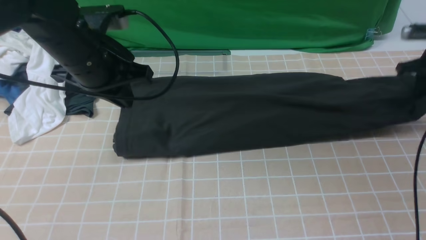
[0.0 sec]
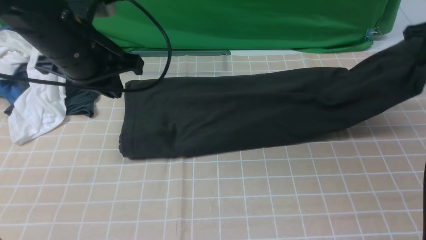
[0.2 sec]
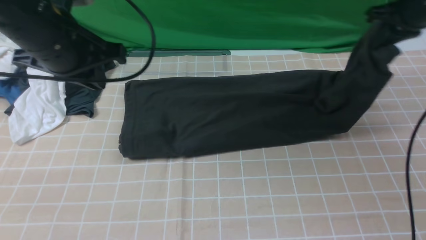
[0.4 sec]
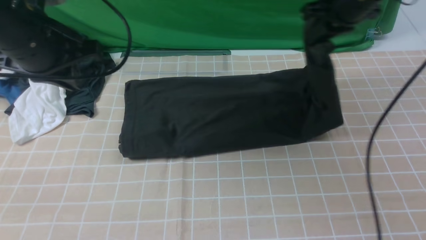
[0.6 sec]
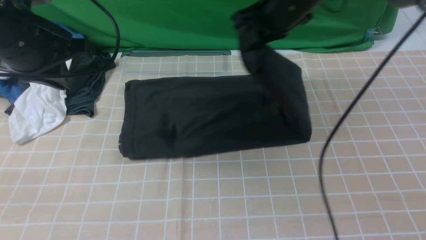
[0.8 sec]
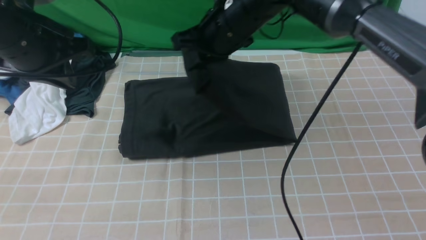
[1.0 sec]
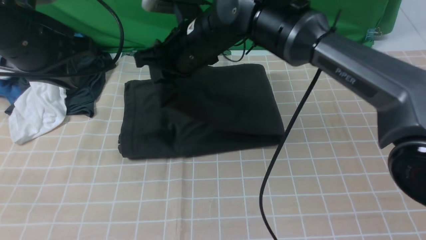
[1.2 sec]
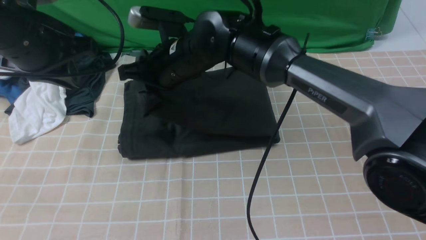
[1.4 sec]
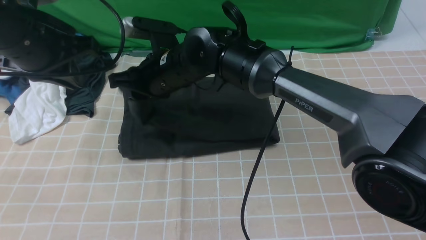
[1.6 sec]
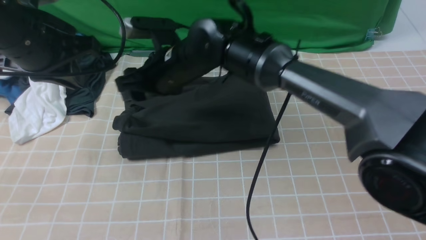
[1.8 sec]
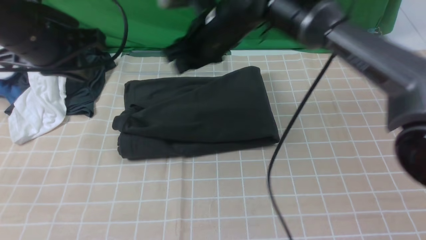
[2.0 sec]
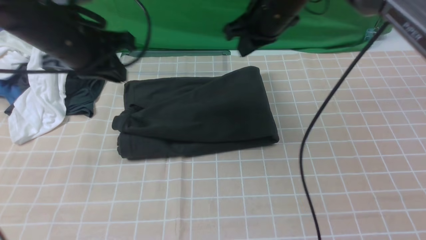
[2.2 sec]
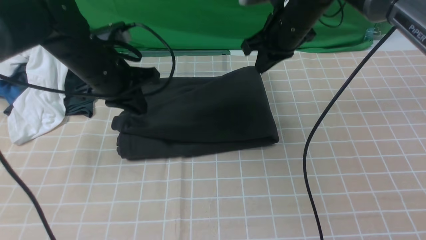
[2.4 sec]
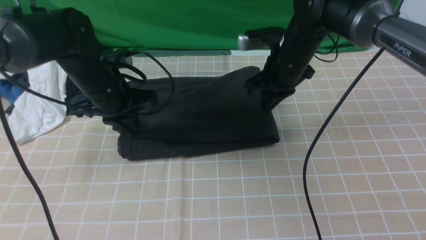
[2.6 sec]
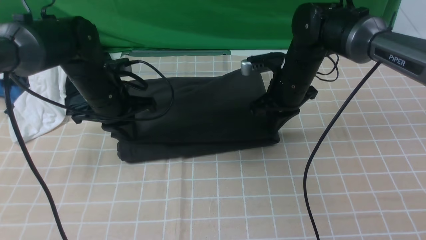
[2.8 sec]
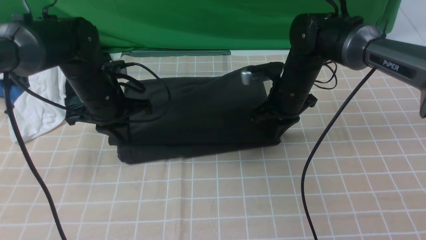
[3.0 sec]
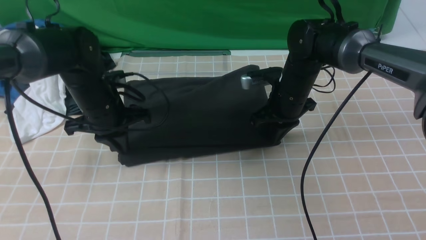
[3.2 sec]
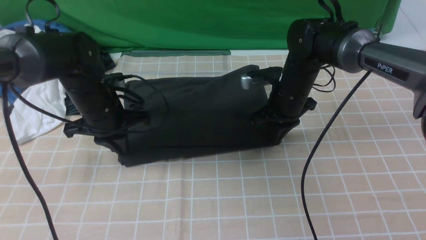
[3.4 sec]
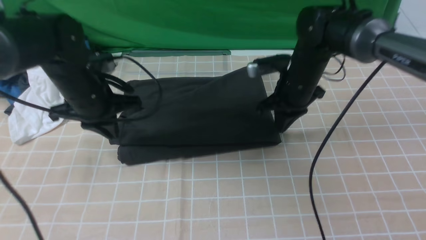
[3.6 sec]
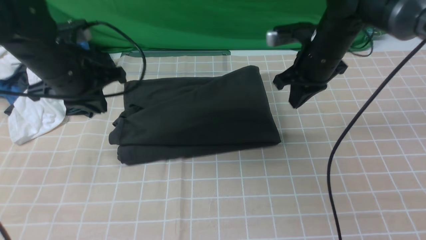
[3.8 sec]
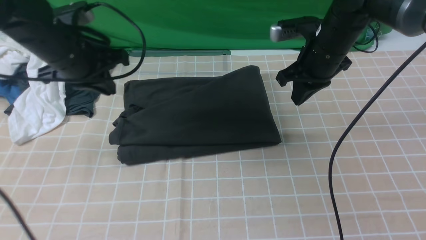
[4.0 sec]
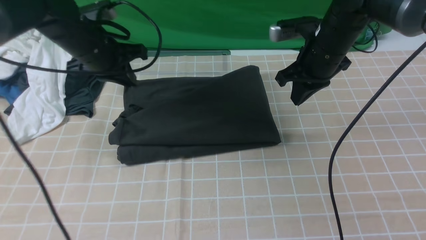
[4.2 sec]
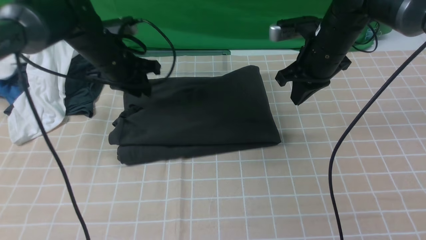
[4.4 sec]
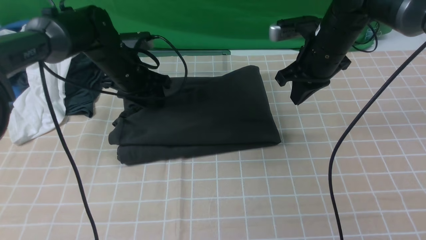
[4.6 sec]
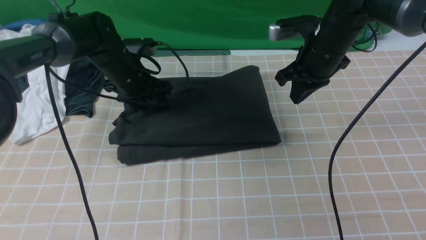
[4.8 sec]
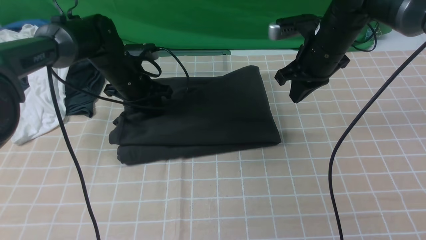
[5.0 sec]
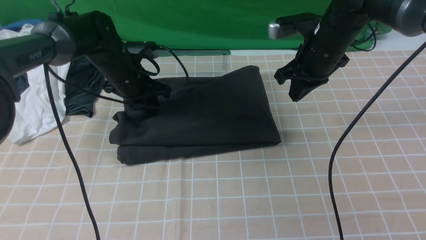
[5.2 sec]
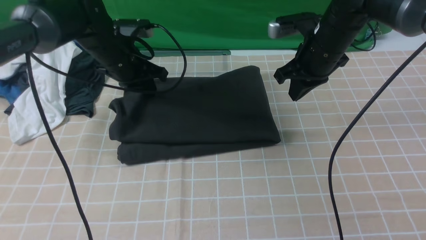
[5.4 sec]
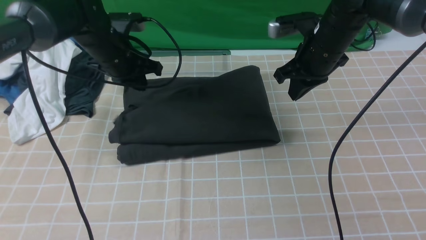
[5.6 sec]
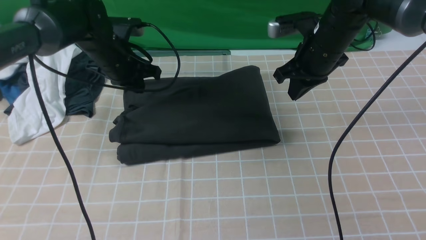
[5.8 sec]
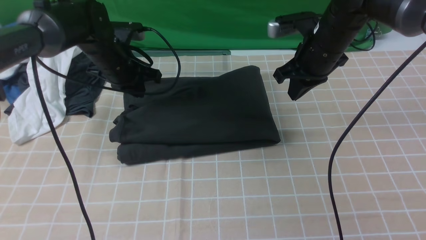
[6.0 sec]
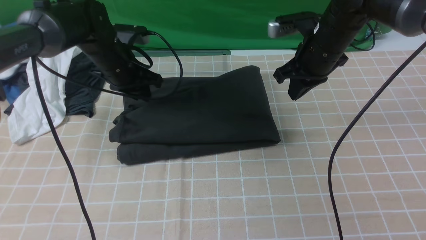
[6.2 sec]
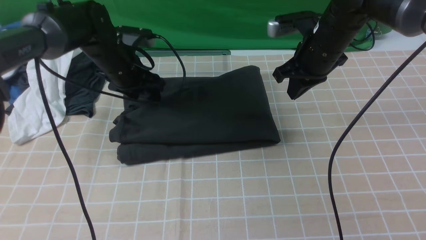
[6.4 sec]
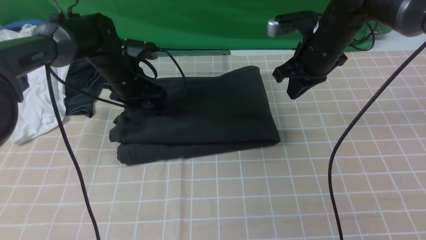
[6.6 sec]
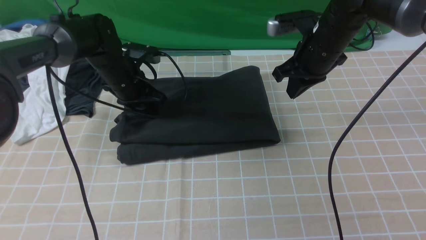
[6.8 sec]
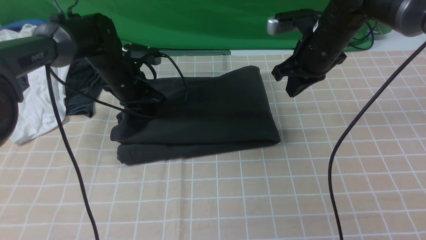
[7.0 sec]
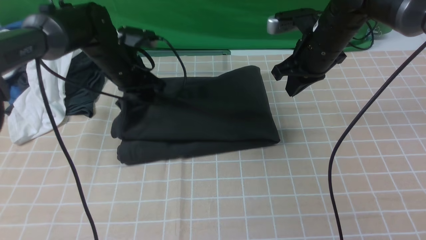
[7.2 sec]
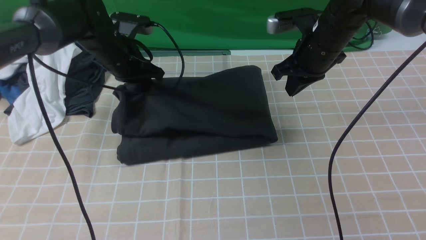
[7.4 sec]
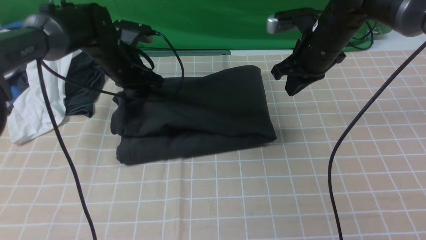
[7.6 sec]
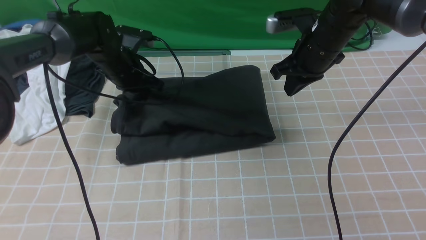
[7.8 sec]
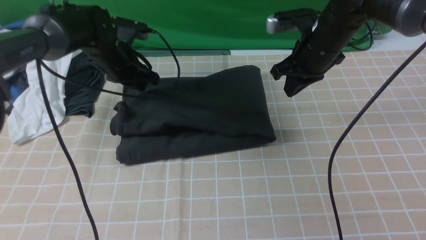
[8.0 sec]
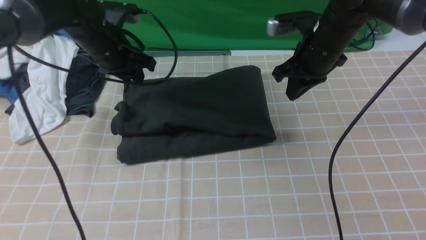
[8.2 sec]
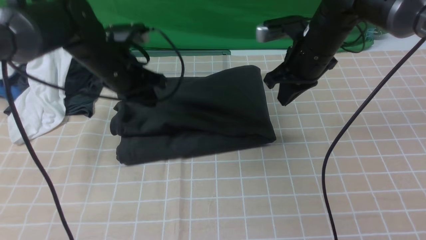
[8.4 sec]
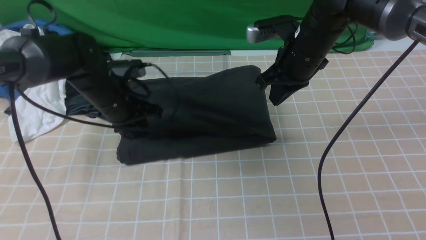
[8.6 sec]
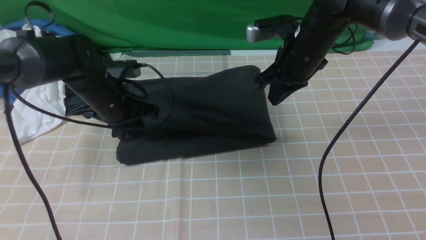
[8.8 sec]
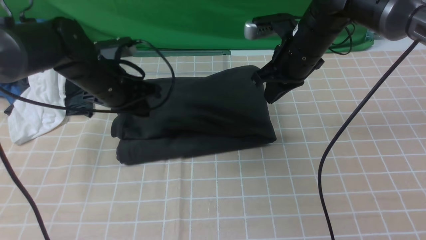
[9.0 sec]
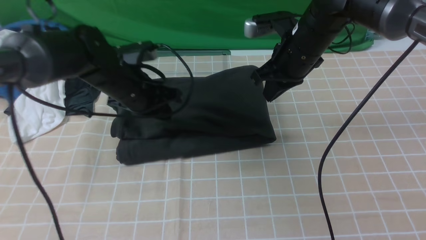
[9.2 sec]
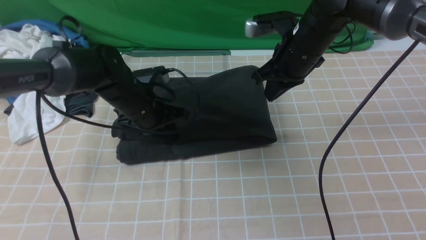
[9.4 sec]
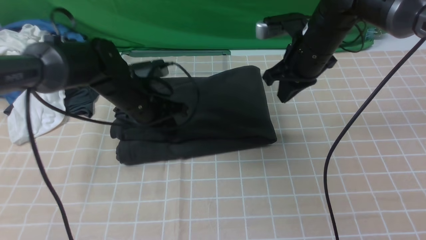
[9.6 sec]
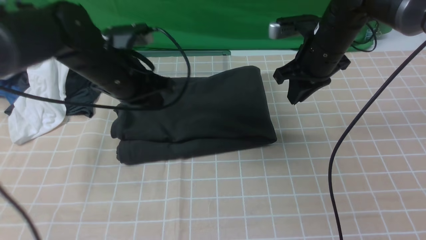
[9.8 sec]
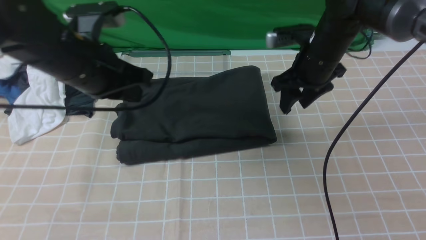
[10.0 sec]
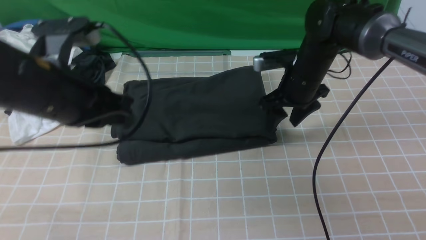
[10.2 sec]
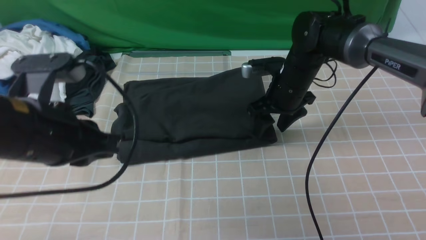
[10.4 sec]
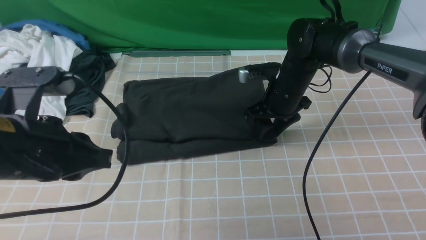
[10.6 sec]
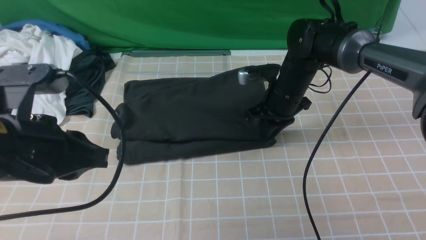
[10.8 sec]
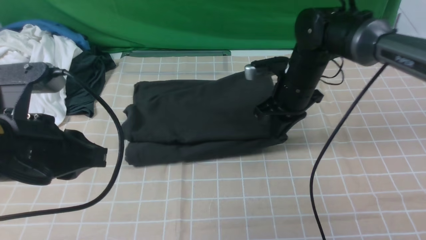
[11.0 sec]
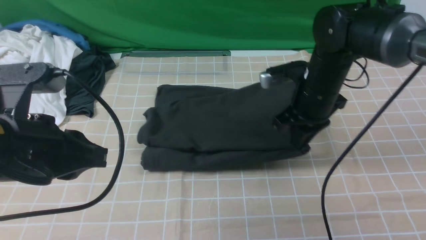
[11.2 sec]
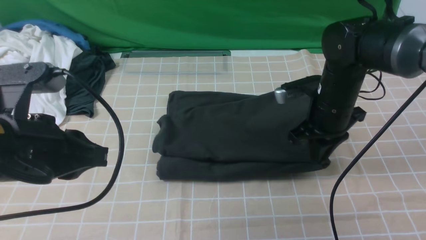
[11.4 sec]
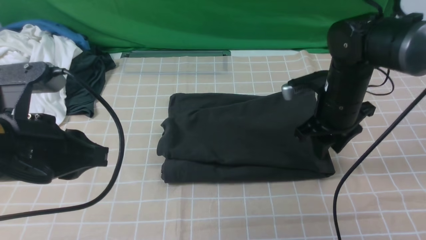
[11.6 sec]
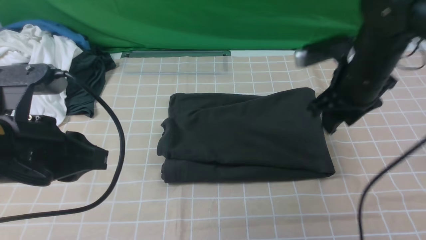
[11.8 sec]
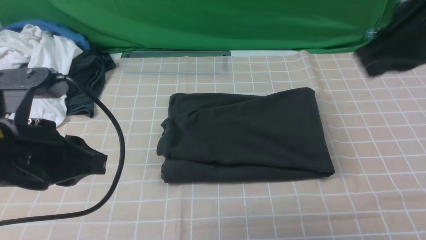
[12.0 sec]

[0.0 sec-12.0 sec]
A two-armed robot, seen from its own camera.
Step, 0.0 sec to 2.0 sec: use the right arm to drag the right edge of the fabric to the left and folds it over the left edge.
0.0 sec to 1.6 sec: The right gripper goes approximately 50 cm to the left, and opens, while the left gripper shifts roughly 5 cm to the left.
1.6 sec to 3.0 sec: The left gripper shifts about 15 cm downward, while the right gripper heads to the right, covering some 20 cm, and closes its fingers.
3.0 sec to 4.4 sec: The left gripper shifts about 5 cm forward, reaches about 10 cm upward, then returns, and opens its fingers; the right gripper heads upward, covering some 10 cm.
4.4 sec to 6.0 sec: The left gripper opens, then closes once more.
6.0 sec to 7.6 sec: The left gripper opens and closes again.
7.6 sec to 9.0 sec: The left gripper heads backward, covering roughly 10 cm.
9.0 sec to 10.4 sec: The right gripper is displaced downward by about 10 cm, and opens its fingers. Meanwhile the left gripper goes roughly 20 cm backward and upward.
10.4 sec to 12.0 sec: The right gripper is displaced upward, backward and to the right by about 30 cm, and closes its fingers.

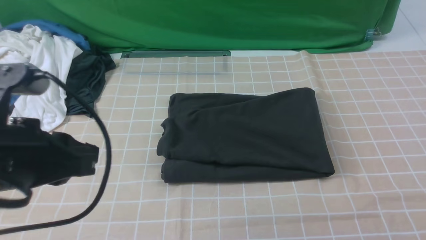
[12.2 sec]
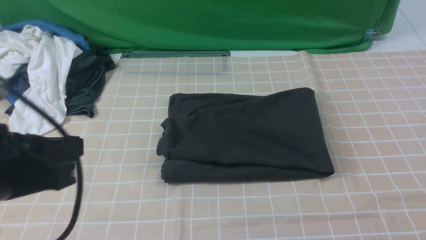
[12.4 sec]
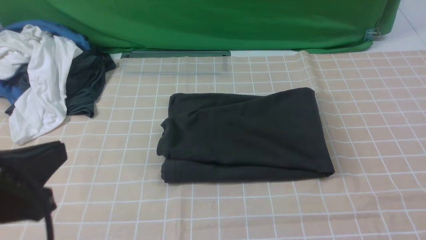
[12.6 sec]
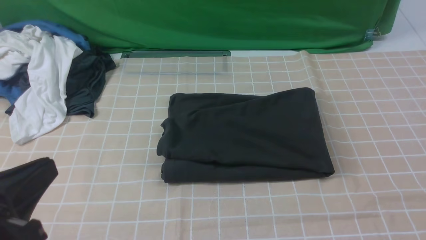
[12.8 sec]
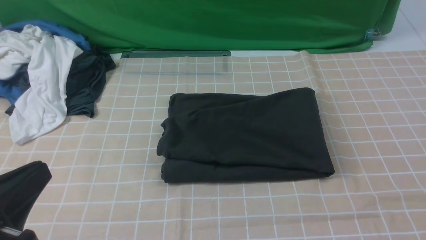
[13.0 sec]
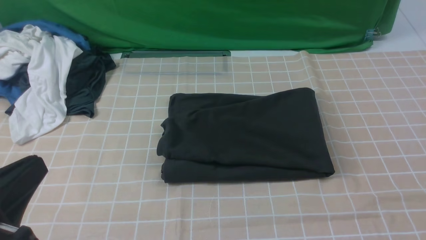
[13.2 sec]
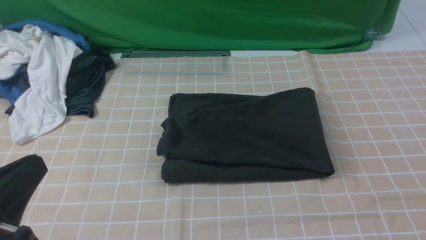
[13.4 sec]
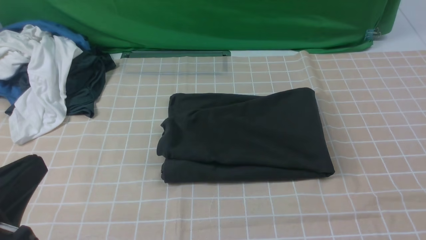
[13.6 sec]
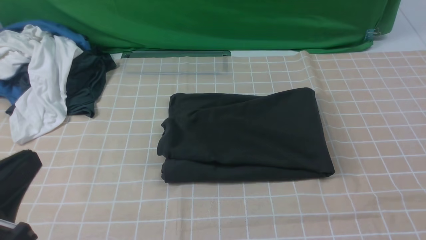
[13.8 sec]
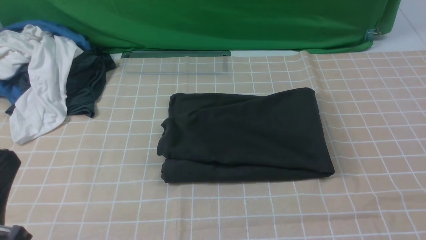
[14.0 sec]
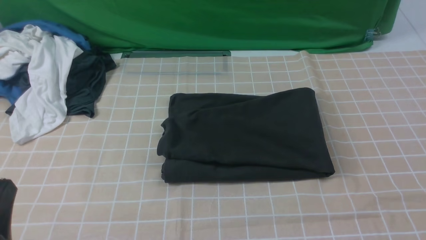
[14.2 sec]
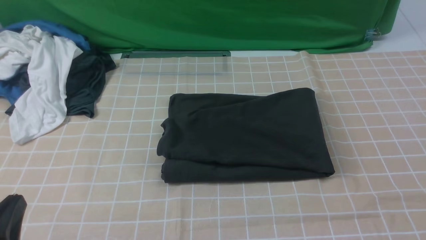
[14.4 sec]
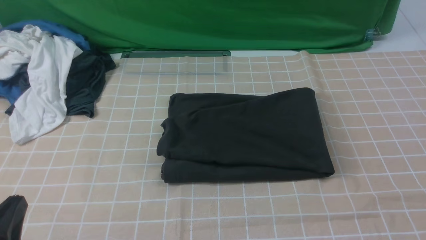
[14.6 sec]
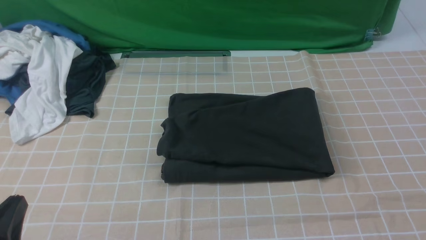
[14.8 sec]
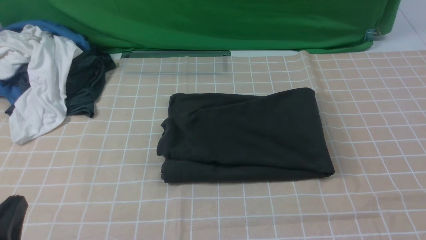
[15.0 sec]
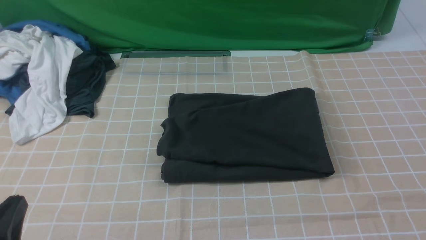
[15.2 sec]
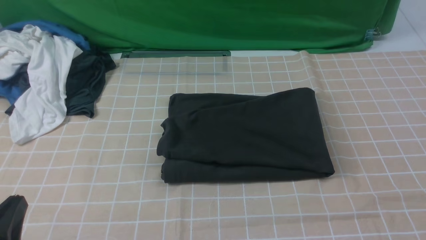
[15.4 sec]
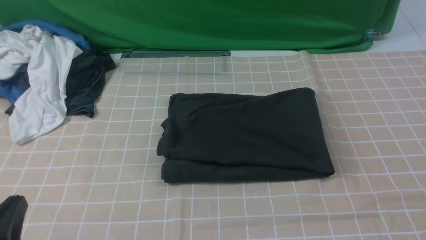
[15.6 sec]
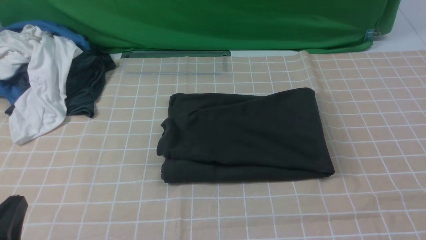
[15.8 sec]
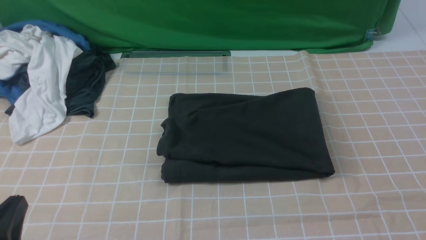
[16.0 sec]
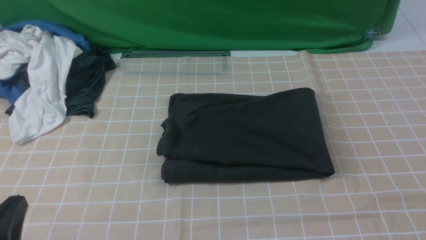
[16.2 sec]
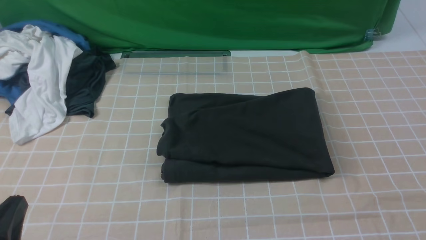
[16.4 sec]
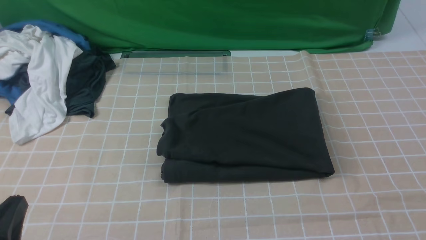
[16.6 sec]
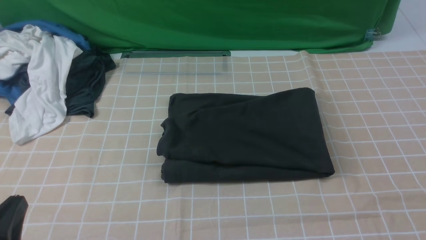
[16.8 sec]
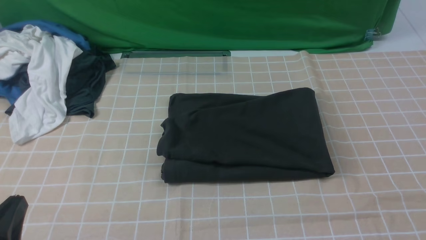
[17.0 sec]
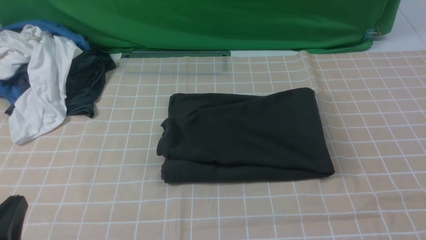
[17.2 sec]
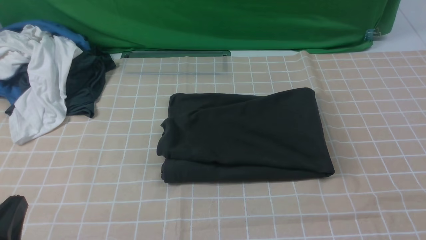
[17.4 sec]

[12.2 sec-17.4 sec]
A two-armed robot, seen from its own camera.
12.2 sec to 14.0 sec: The left gripper travels backward and downward by about 10 cm, while the right gripper goes approximately 20 cm backward and downward.
14.0 sec to 15.6 sec: The left gripper heads downward, covering roughly 5 cm.
